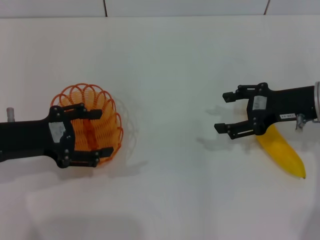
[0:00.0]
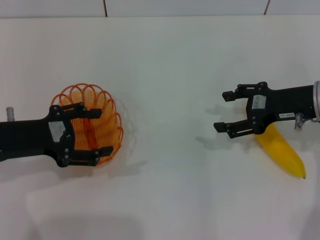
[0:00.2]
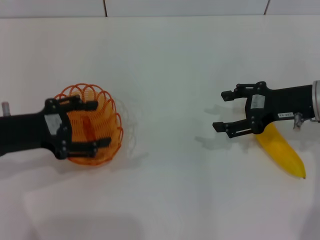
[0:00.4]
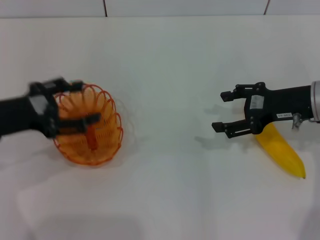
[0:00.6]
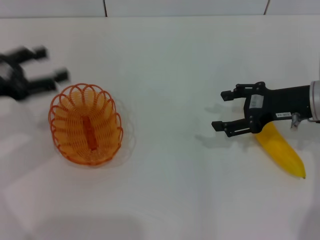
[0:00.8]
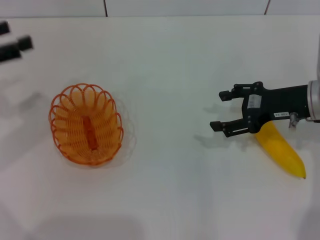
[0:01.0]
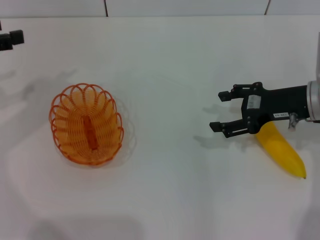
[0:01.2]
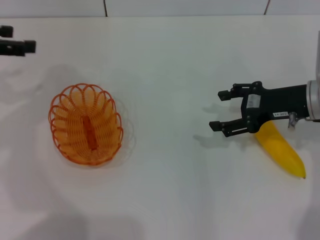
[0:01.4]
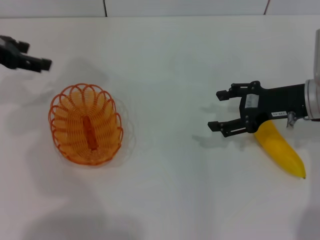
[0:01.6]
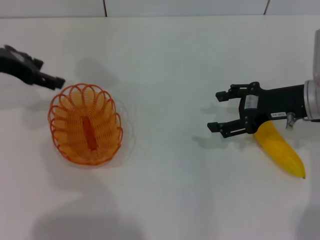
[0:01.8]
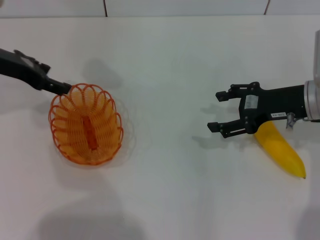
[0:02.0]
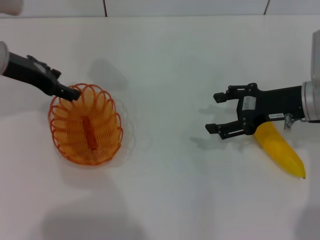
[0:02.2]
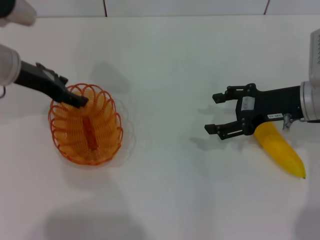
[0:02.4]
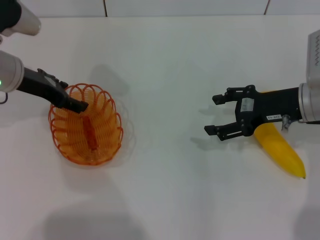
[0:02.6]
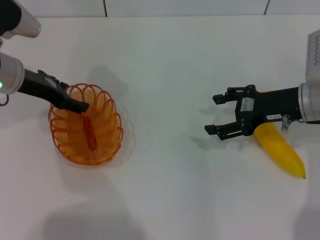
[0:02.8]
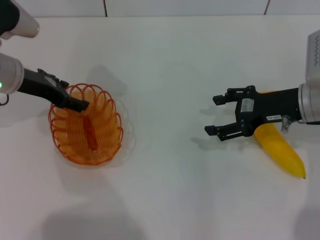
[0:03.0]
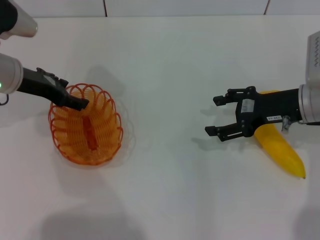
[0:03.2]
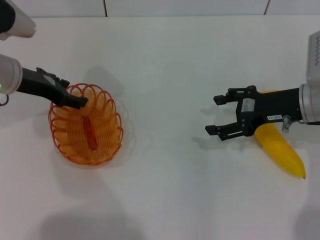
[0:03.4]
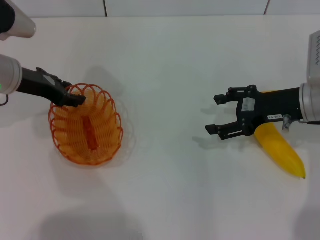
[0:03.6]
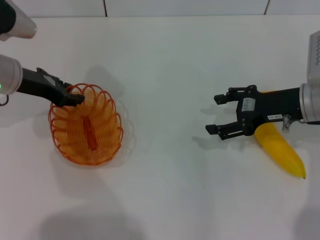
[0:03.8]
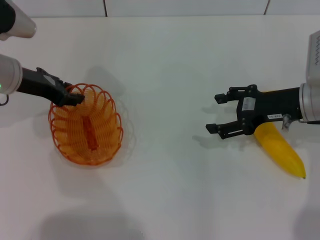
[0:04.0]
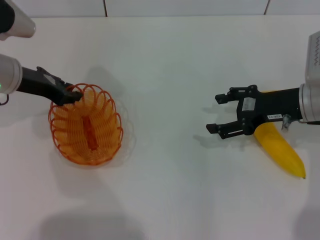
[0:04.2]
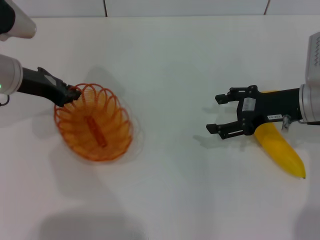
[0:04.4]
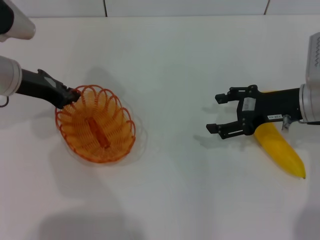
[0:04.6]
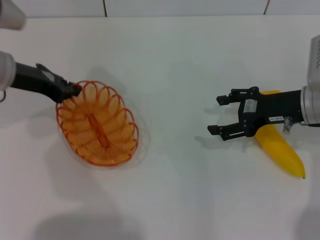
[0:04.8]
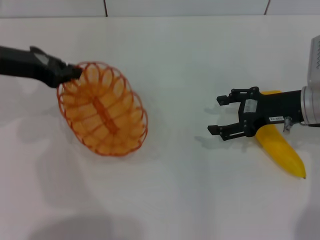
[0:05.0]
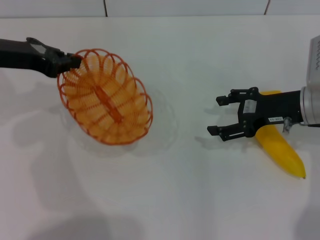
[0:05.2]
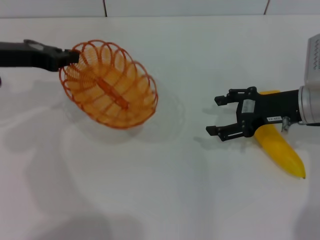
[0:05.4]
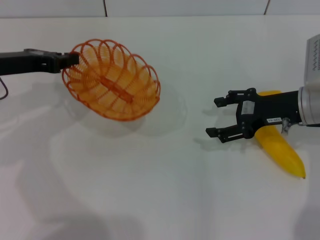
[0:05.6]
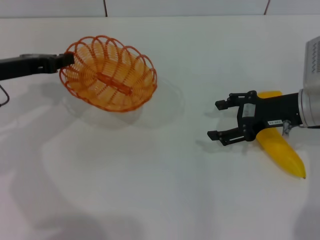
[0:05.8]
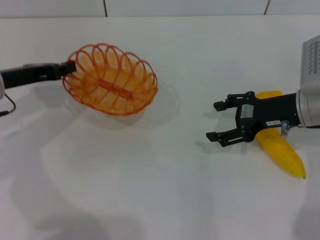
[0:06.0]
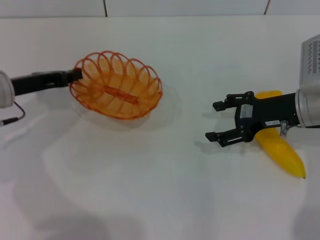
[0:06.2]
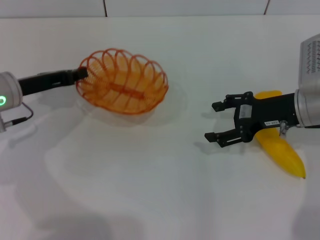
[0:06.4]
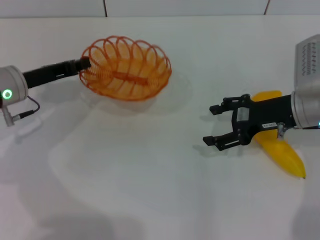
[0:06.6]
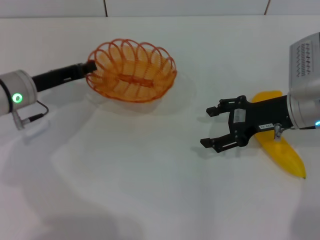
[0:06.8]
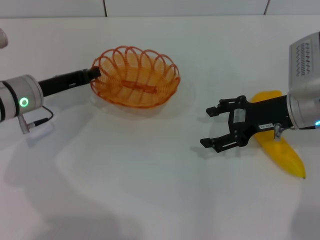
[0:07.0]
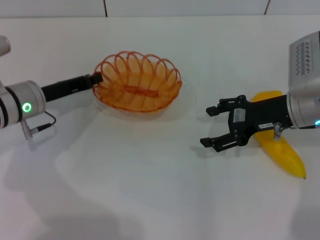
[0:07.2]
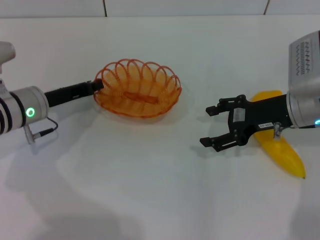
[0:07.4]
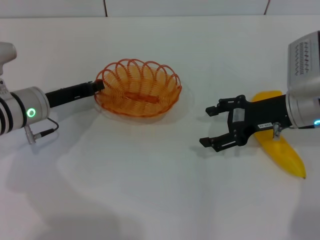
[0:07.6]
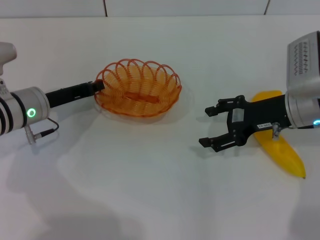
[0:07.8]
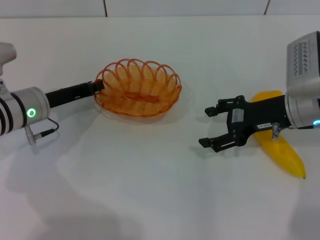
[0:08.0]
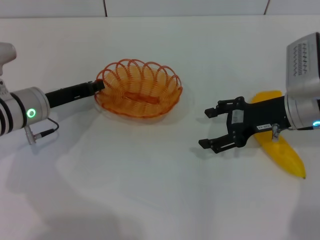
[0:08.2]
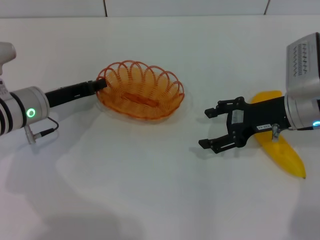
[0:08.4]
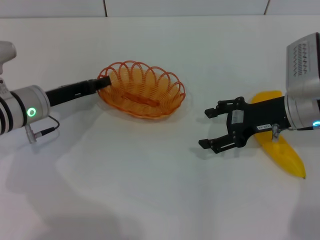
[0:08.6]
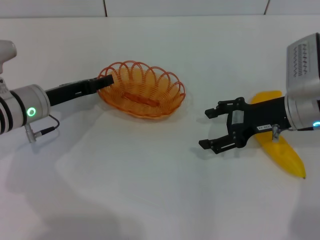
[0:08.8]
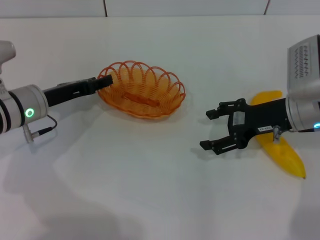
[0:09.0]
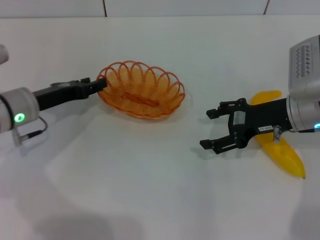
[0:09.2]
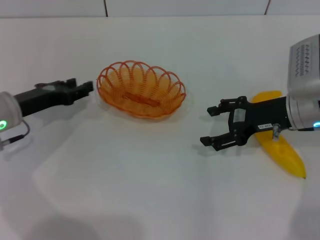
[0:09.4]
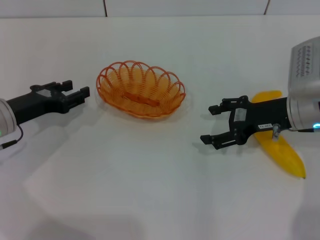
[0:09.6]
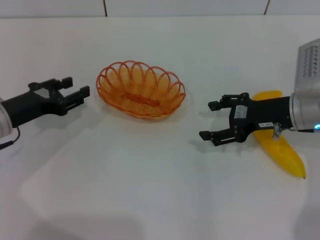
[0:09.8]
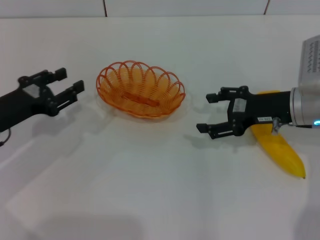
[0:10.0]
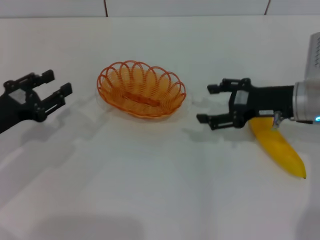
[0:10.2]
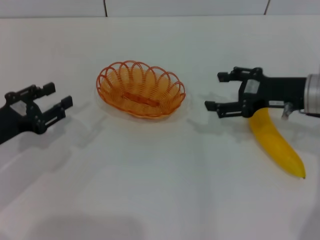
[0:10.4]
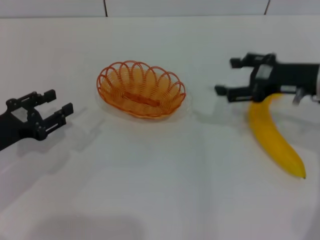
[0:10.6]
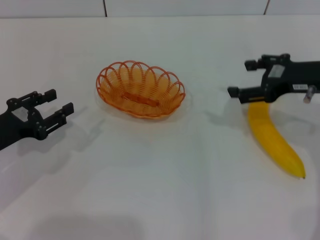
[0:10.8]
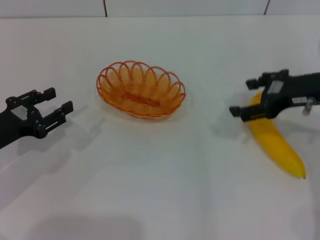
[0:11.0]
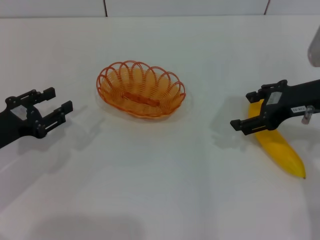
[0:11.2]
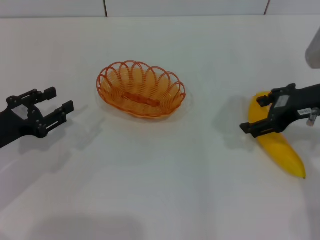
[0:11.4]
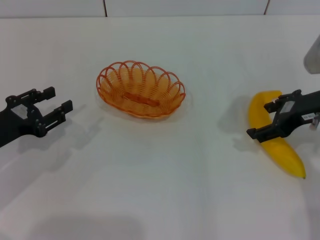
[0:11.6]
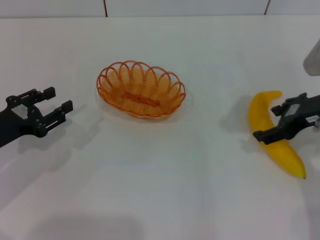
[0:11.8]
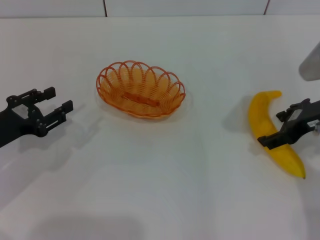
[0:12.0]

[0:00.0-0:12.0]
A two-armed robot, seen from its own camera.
Step, 0:00.0 to 0:05.0: Pick up the basket with the left gripper.
Step, 0:05.4 to 0:09.4: Place the basket in the center of view with the left gripper.
0:00.0 to 0:01.6: The left gripper shifts about 15 cm forward and upward.
0:01.6 to 0:03.0: The left gripper goes approximately 10 cm downward and to the right.
0:03.0 to 0:04.4: The left gripper closes up.
0:06.0 to 0:07.6: The left gripper shifts some 5 cm downward.
0:07.6 to 0:09.0: The left gripper opens.
0:09.0 to 0:10.4: The left gripper moves backward and to the left, roughly 10 cm.

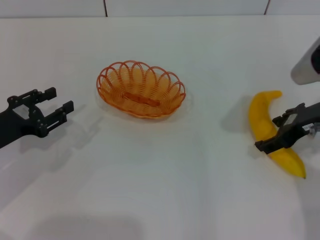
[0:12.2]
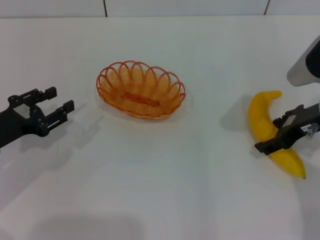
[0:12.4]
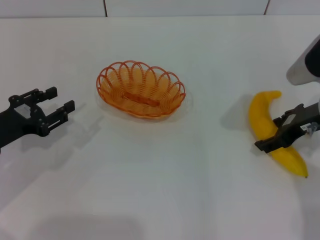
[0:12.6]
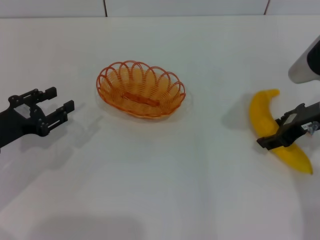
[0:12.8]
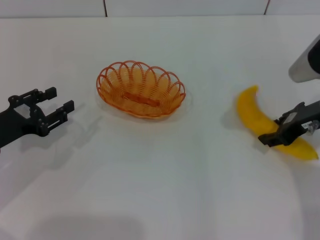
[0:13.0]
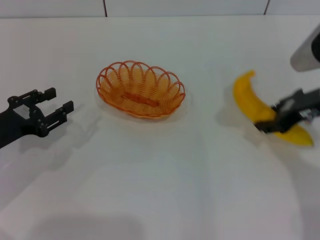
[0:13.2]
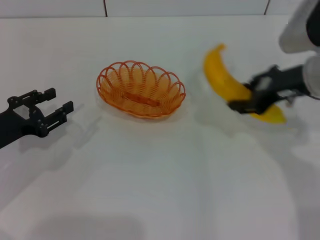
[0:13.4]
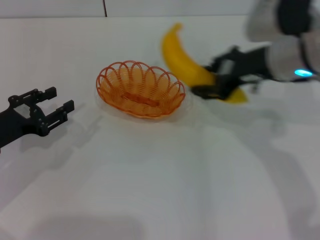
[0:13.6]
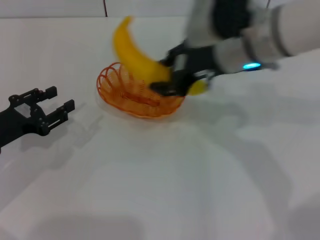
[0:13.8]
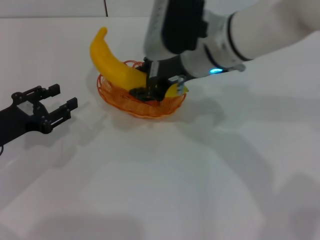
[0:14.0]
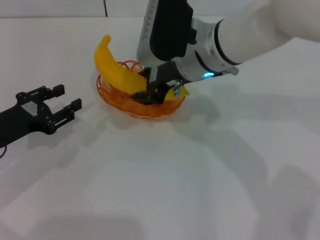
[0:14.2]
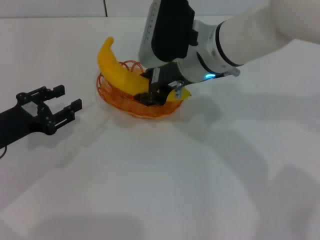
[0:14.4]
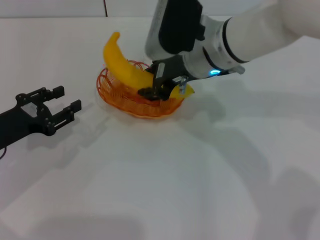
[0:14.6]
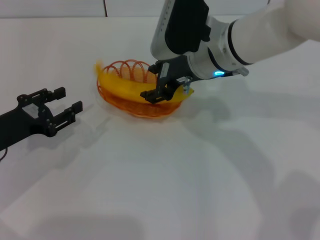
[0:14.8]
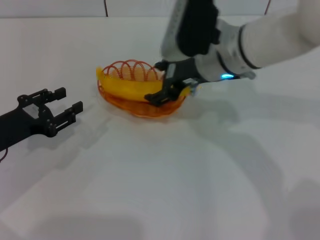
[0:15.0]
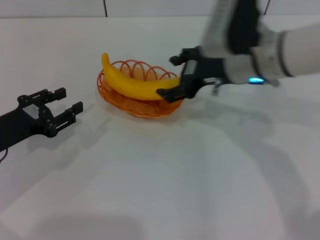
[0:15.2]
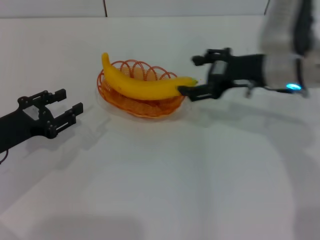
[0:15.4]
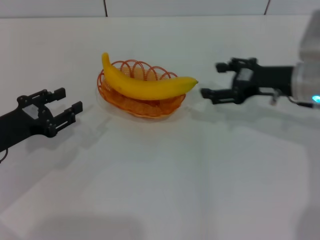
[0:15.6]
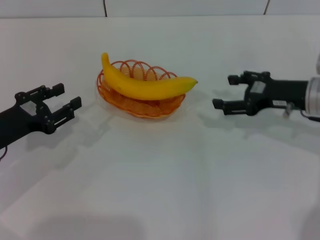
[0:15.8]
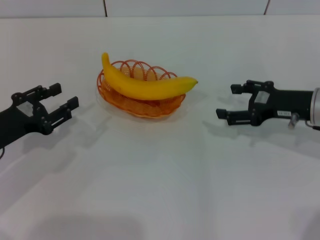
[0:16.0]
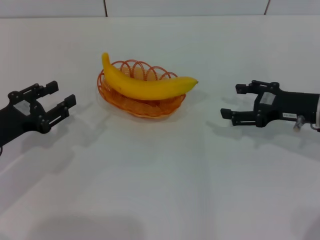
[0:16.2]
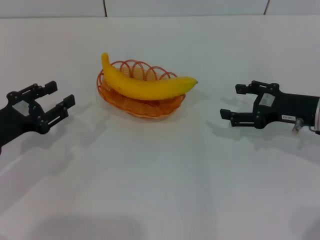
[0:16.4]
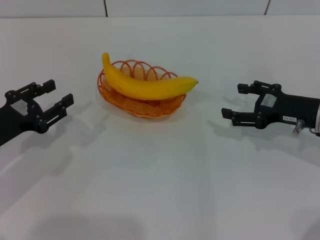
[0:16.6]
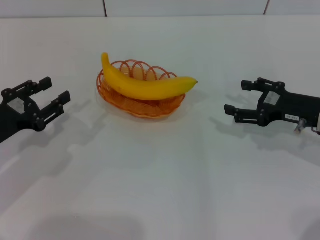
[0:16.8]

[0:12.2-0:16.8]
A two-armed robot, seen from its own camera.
Step, 0:13.4 to 0:15.2: Place the banana into the basket with the right gripper.
0:12.2 to 0:13.8: The right gripper is displaced to the left and upward by about 15 cm, and closes its fingers.
0:13.8 to 0:15.2: The right gripper ends up some 5 cm from where it was, and opens.
0:15.2 to 0:16.8: The right gripper travels to the right, downward and backward by about 20 cm.
